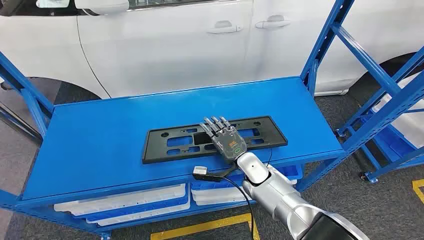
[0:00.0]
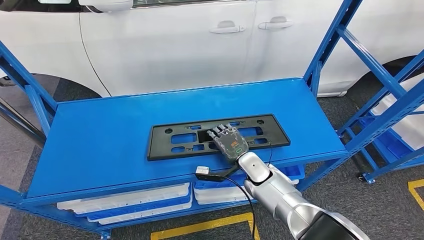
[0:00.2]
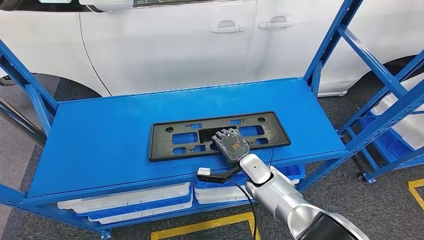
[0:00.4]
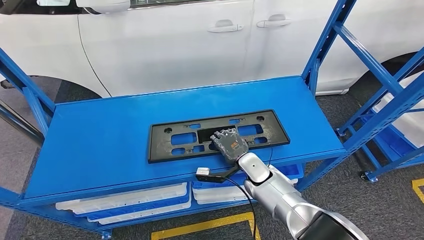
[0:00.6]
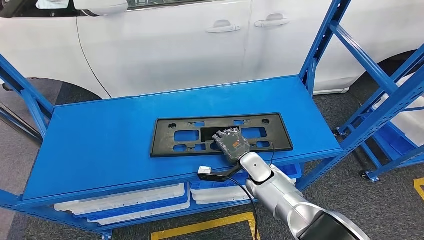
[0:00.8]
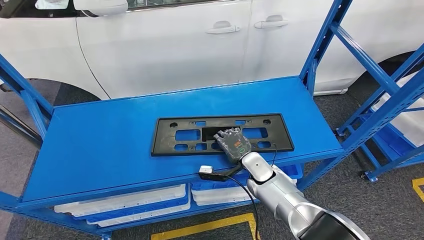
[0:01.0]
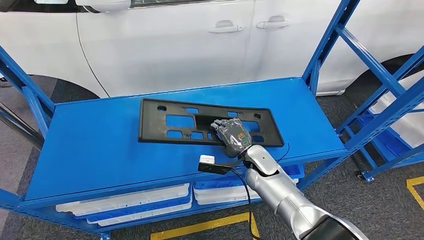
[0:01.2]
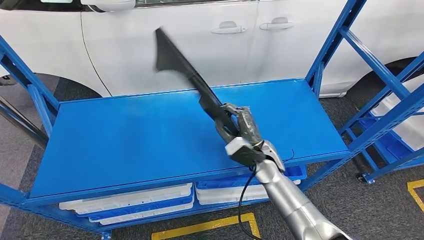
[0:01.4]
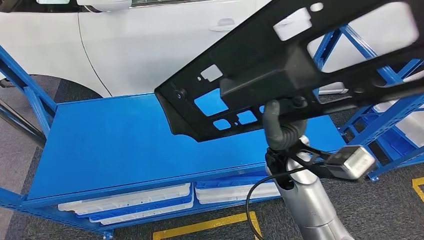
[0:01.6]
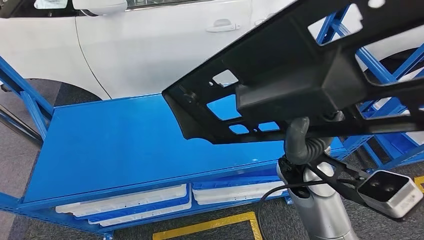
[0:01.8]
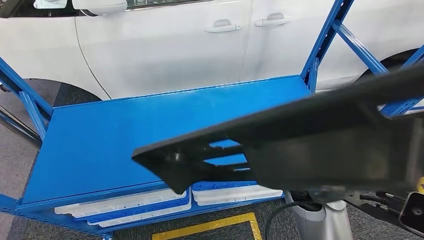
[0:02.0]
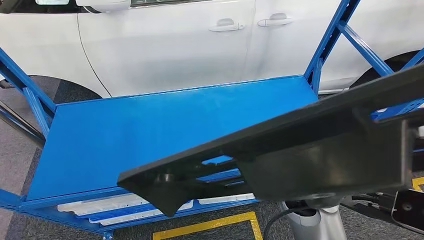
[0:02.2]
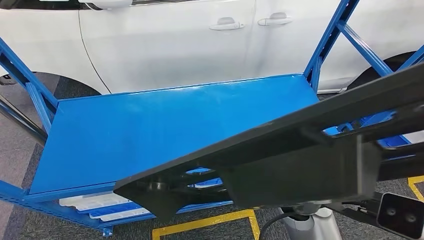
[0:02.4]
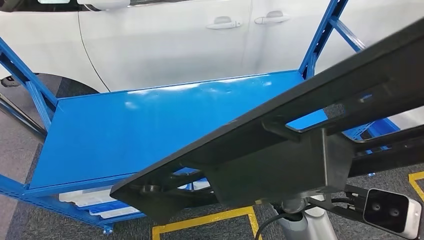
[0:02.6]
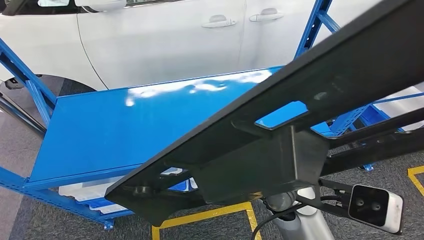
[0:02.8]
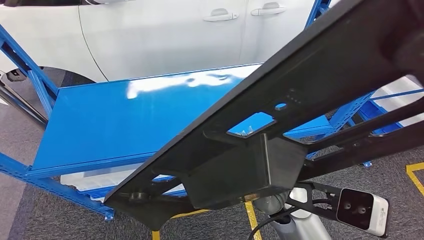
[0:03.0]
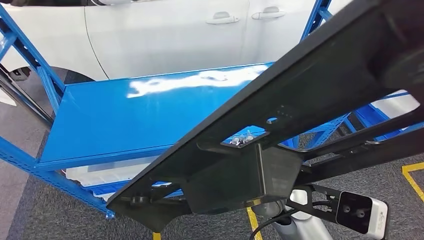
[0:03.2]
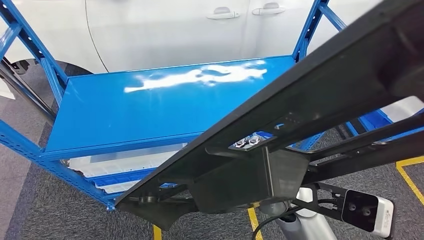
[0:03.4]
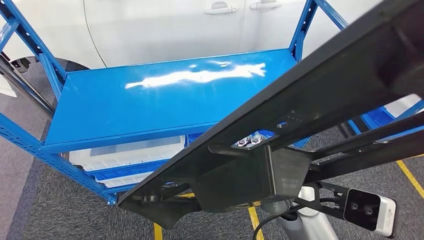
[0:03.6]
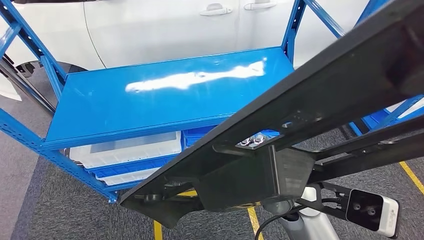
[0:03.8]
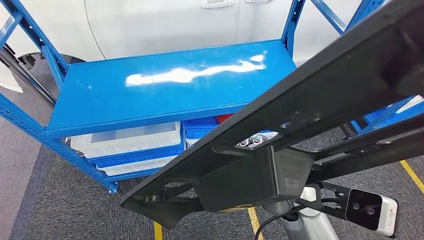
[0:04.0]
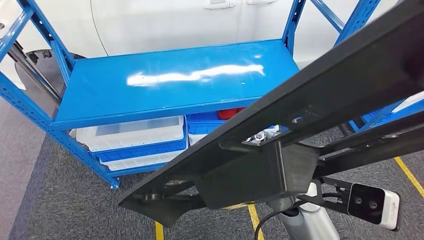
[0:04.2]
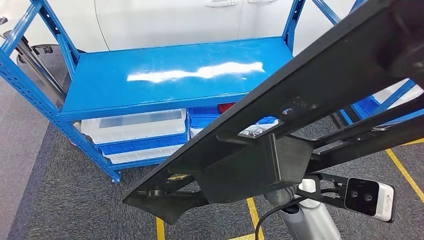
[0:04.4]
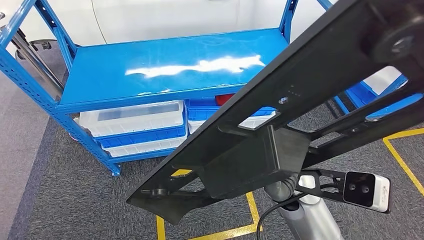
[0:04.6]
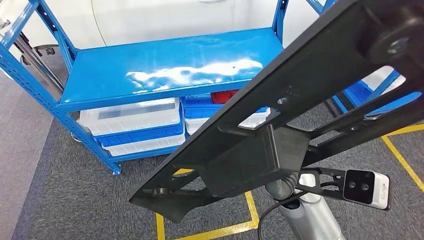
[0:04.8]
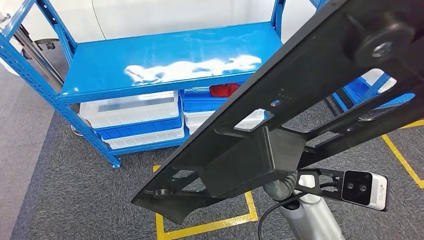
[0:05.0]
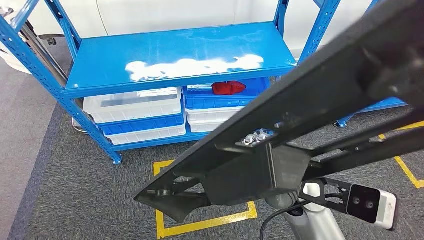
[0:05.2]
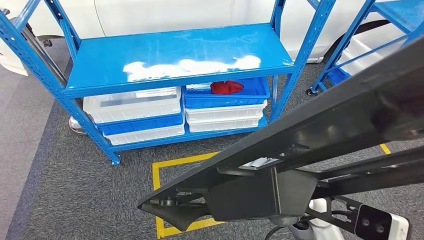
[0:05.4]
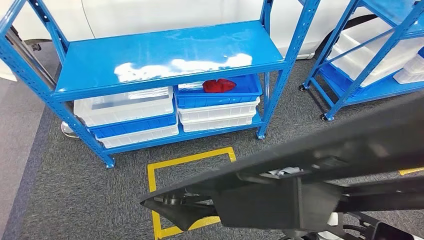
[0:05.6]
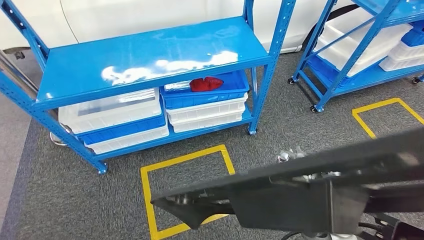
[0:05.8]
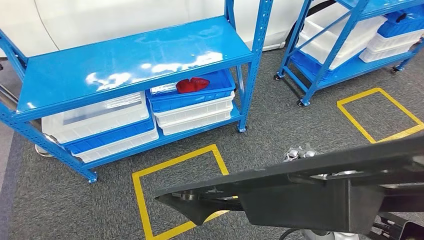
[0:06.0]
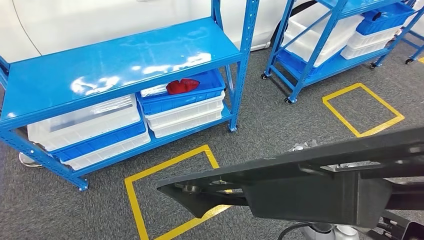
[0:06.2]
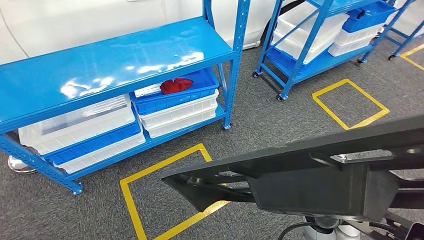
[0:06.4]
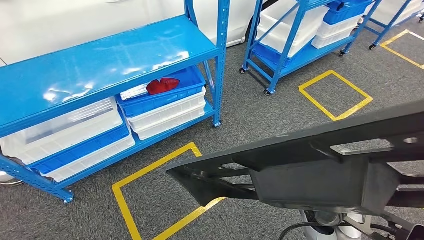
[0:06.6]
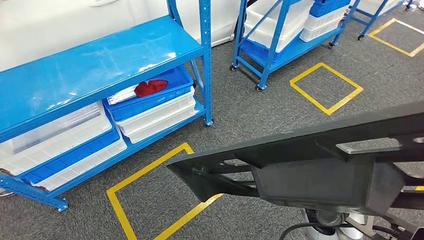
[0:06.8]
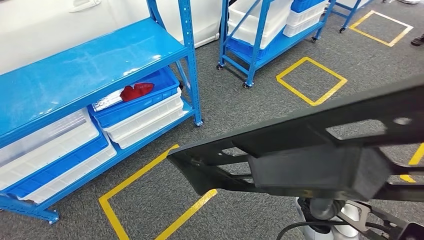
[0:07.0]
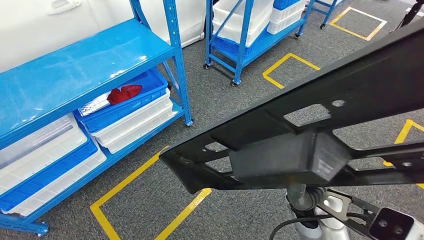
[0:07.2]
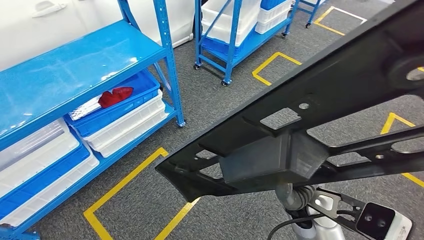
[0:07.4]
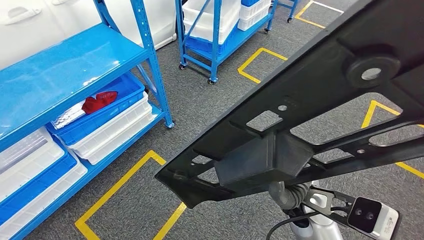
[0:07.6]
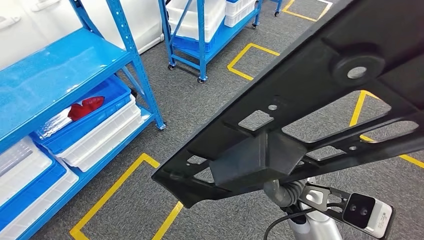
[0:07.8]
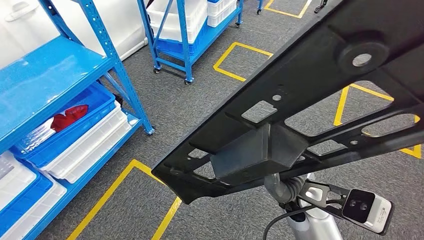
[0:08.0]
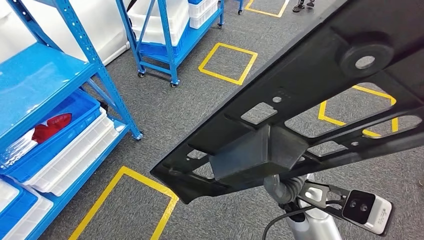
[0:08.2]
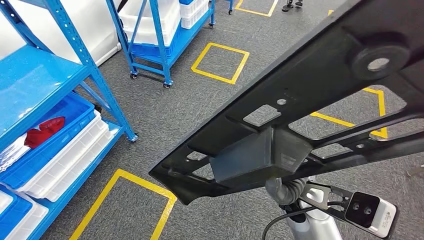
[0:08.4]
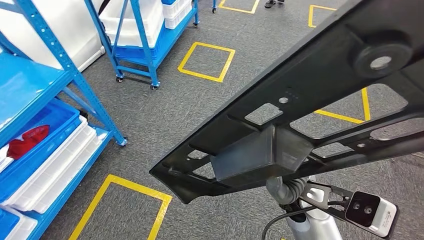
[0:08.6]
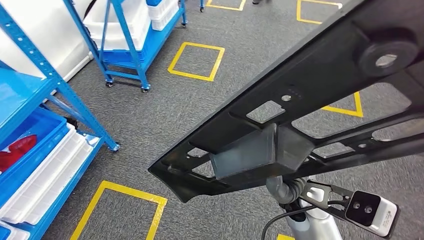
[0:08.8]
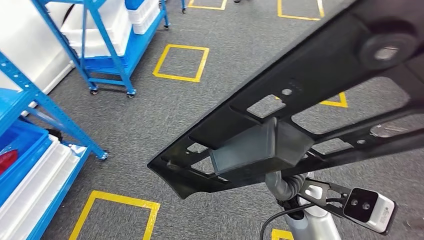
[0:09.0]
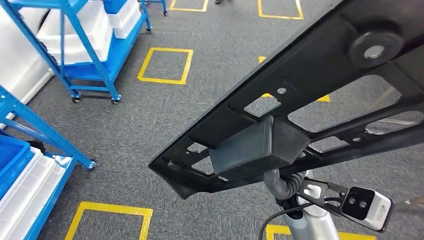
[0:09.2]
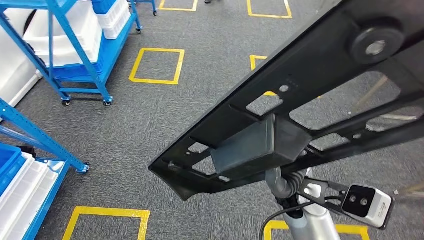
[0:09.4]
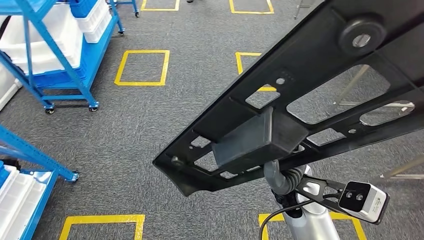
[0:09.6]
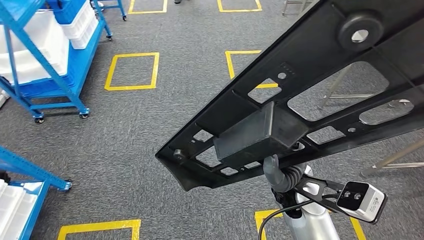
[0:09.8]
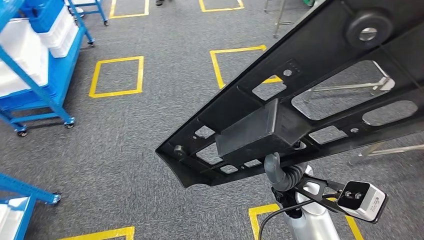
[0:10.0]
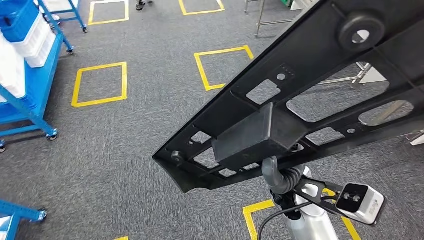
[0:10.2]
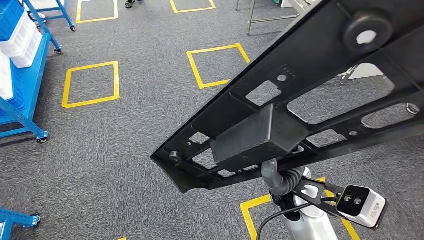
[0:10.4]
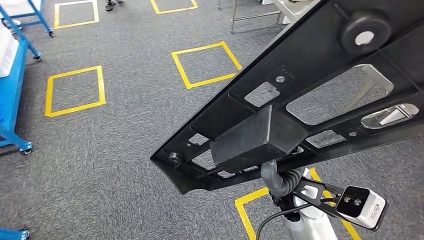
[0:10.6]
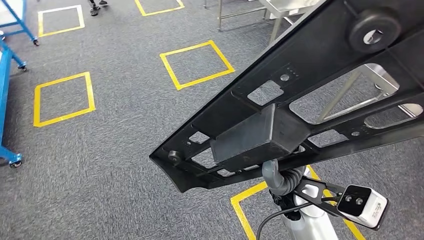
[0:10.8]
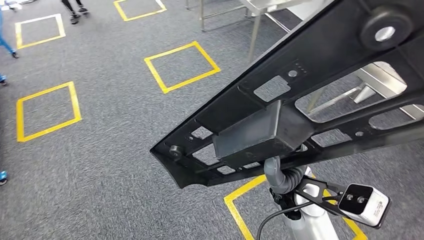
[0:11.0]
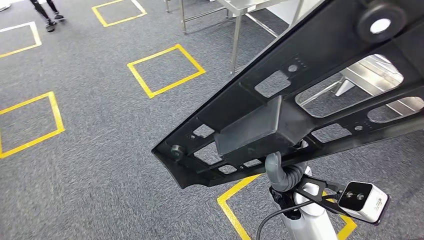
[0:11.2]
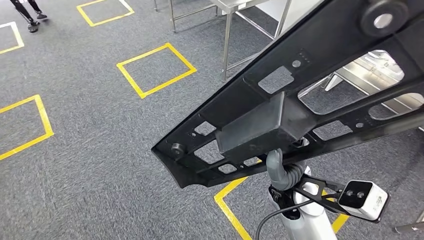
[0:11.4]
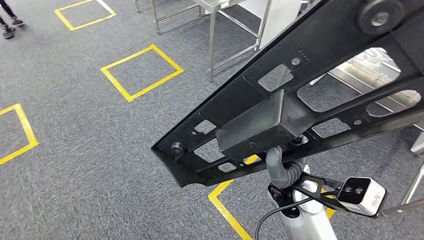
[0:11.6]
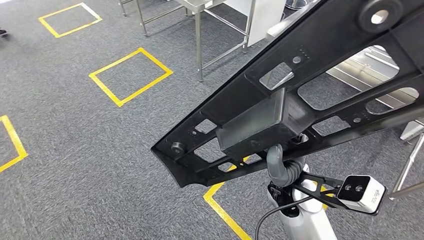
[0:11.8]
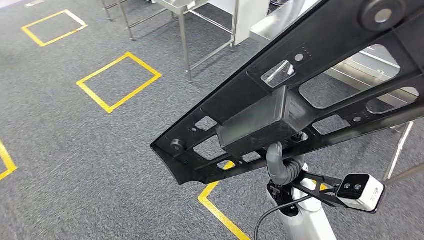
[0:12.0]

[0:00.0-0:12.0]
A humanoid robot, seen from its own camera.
Step, 0:00.0 to 0:02.6: Pick up the large material from the shelf.

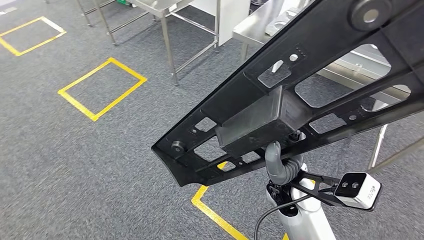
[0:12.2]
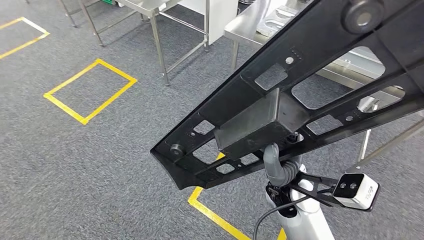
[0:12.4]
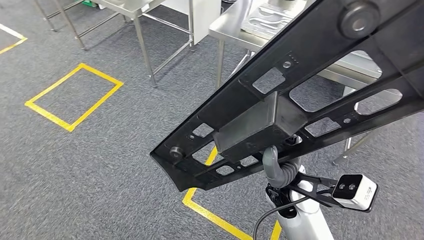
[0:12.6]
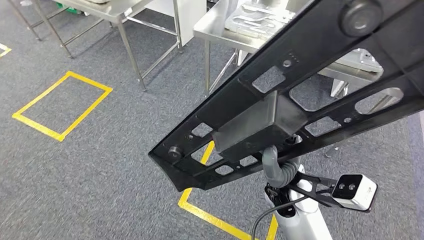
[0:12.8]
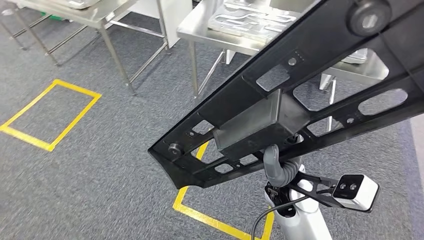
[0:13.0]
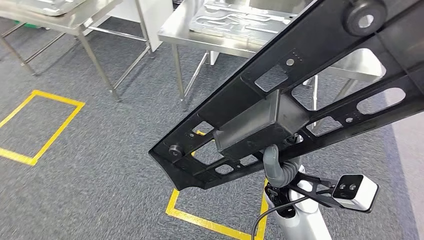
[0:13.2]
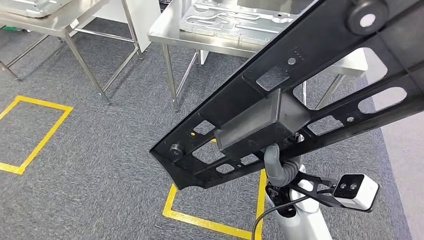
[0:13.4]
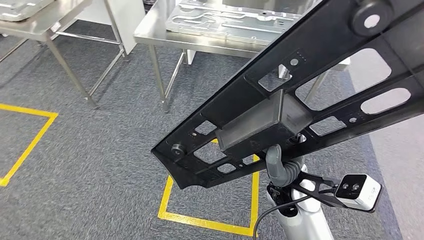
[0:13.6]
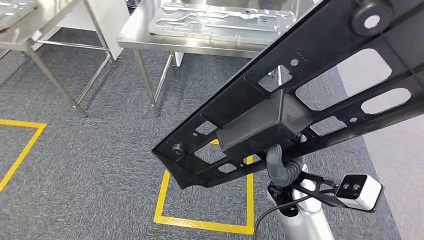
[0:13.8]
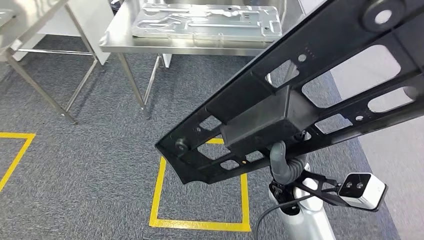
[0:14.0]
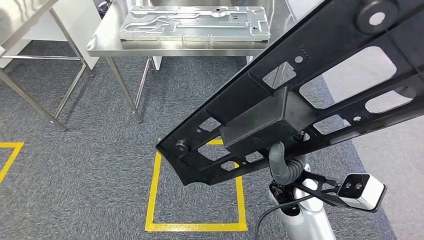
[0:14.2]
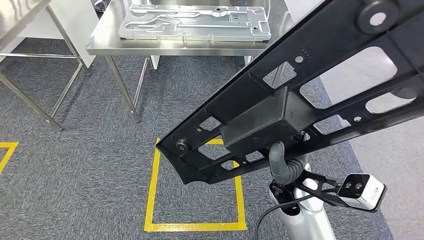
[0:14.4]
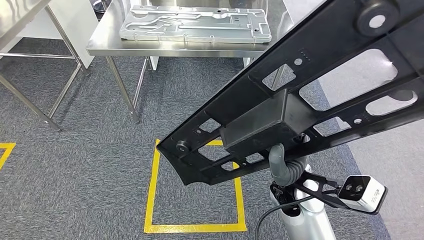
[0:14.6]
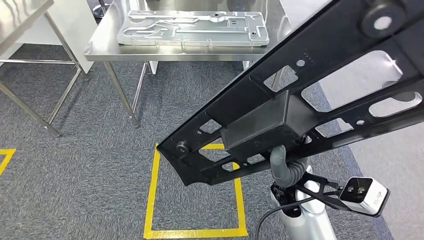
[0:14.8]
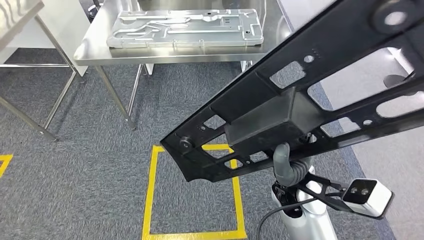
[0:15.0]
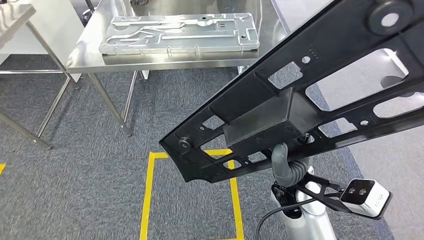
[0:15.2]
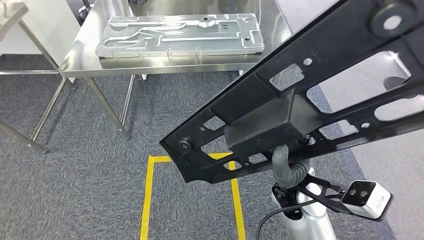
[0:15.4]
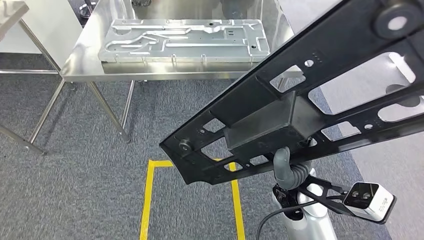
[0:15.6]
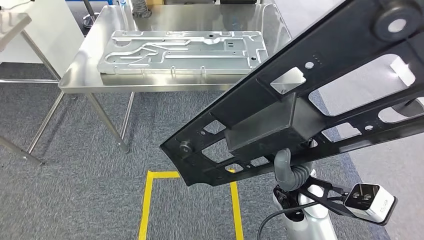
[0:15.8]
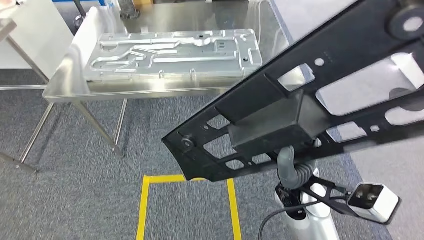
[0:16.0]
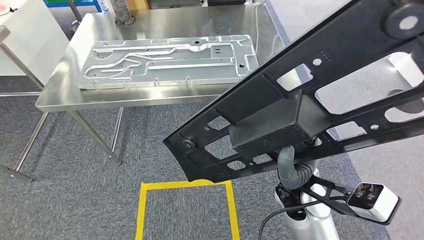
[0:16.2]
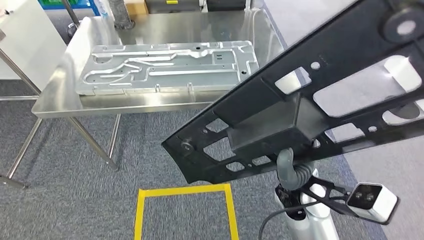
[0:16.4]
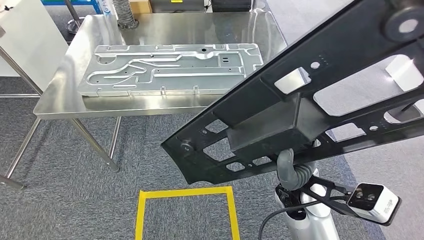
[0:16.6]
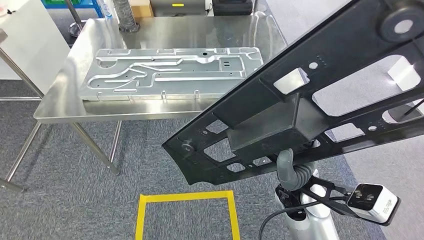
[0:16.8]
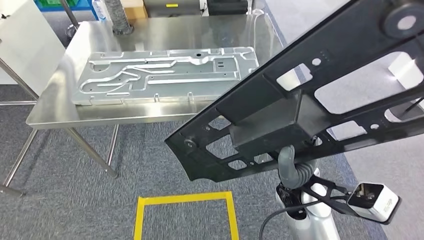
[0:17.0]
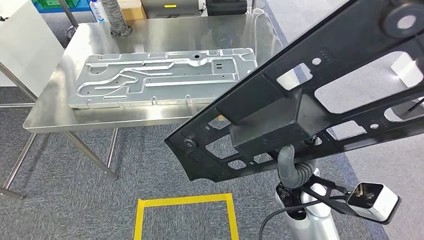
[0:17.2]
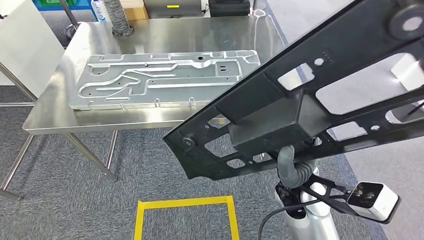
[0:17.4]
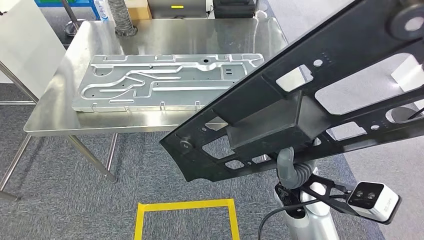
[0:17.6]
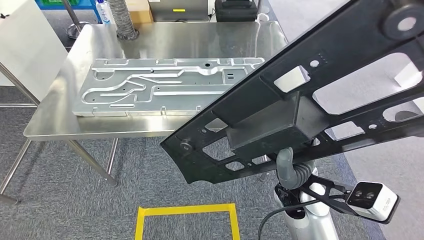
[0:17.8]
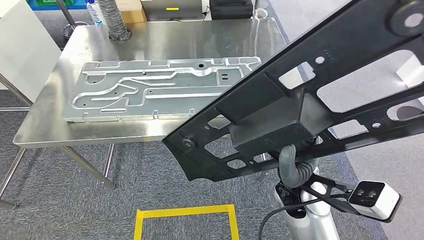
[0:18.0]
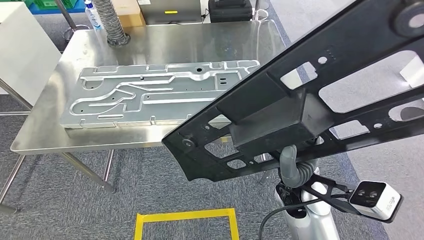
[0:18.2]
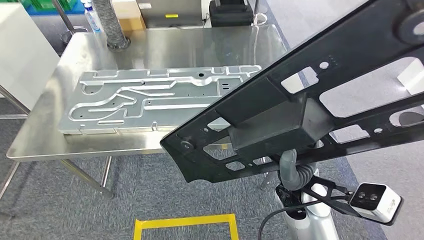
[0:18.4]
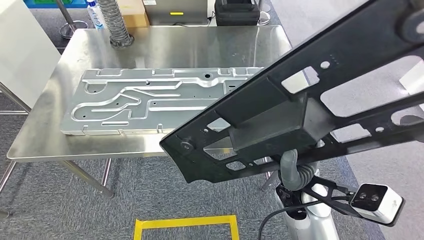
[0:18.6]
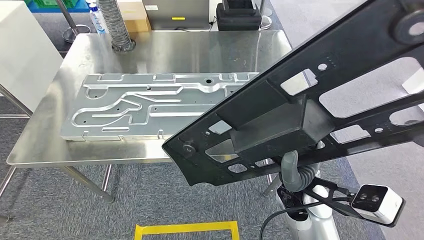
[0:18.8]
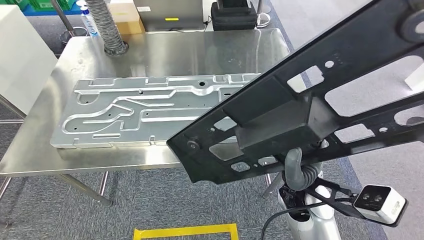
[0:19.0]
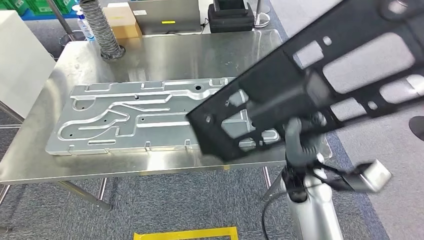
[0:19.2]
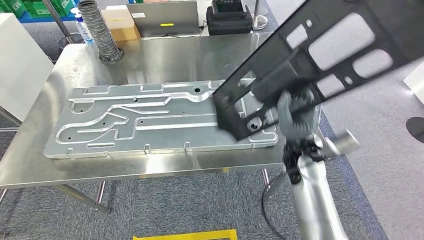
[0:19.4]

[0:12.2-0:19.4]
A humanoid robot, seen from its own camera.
Step, 0:12.2 to 0:17.4: Move the large material to the workbench.
